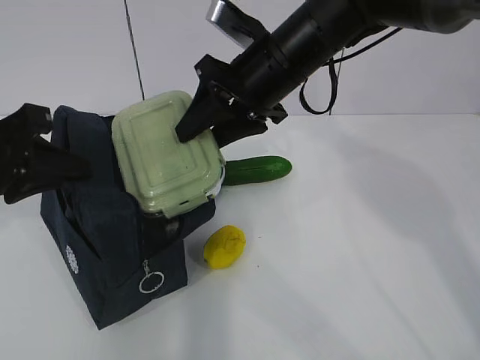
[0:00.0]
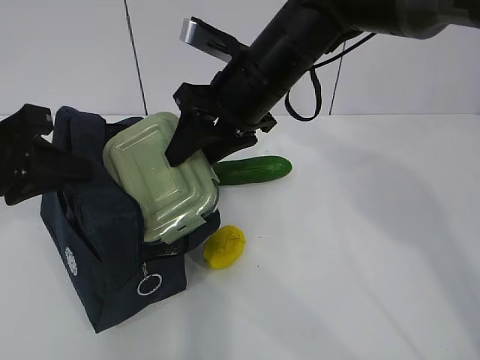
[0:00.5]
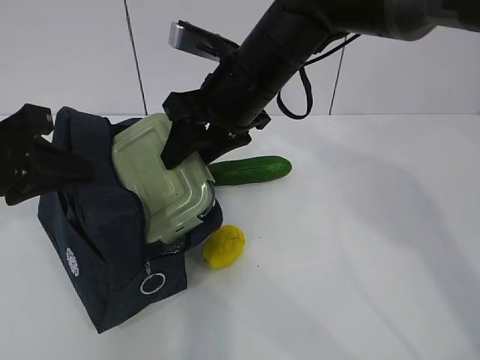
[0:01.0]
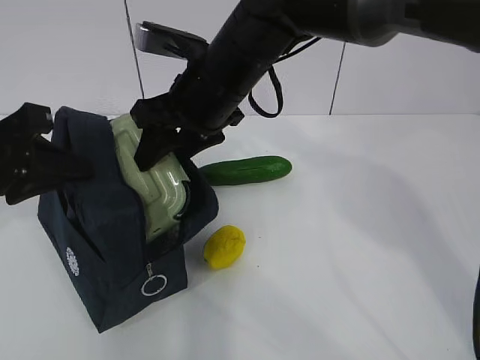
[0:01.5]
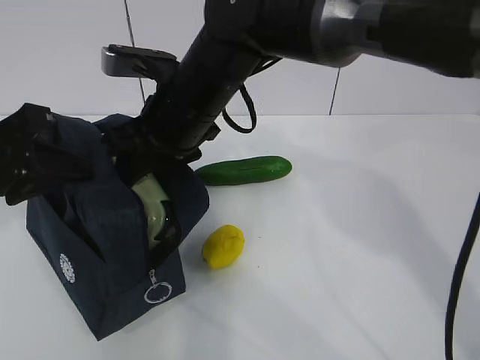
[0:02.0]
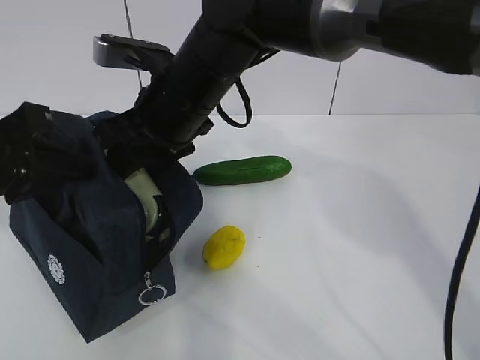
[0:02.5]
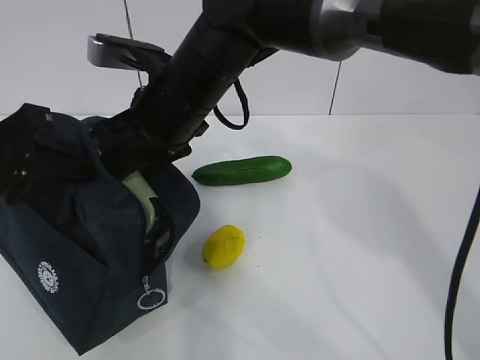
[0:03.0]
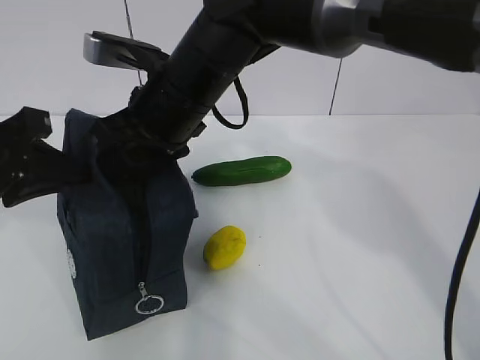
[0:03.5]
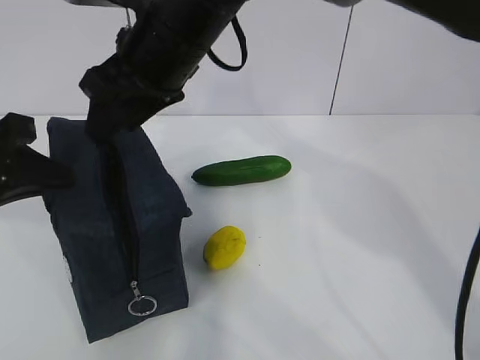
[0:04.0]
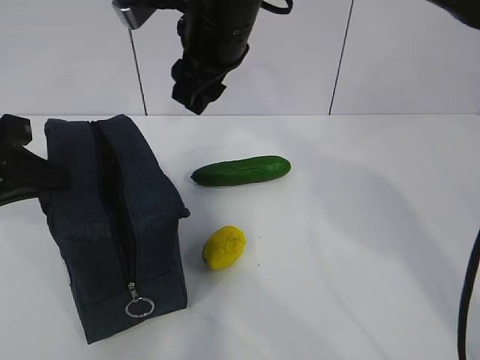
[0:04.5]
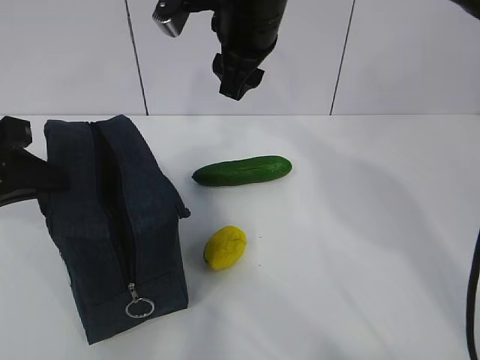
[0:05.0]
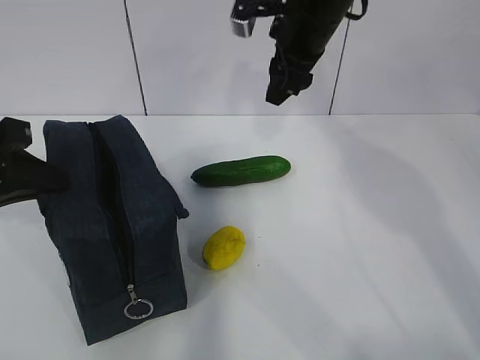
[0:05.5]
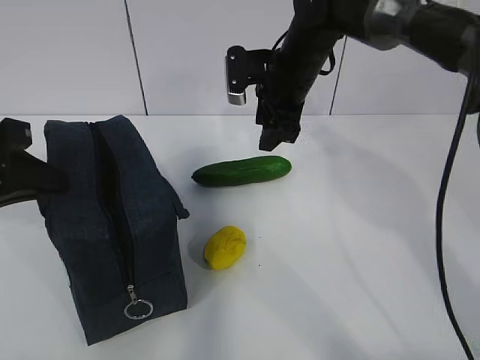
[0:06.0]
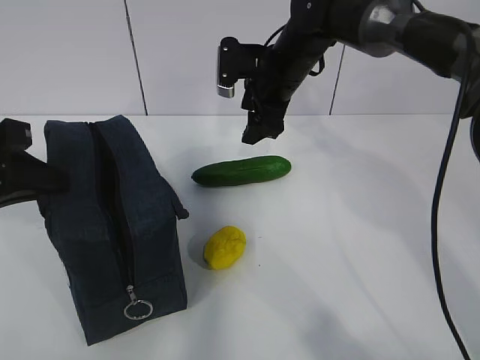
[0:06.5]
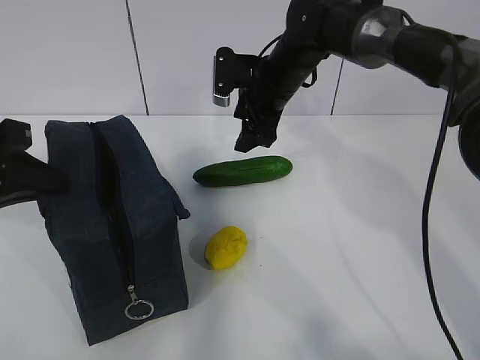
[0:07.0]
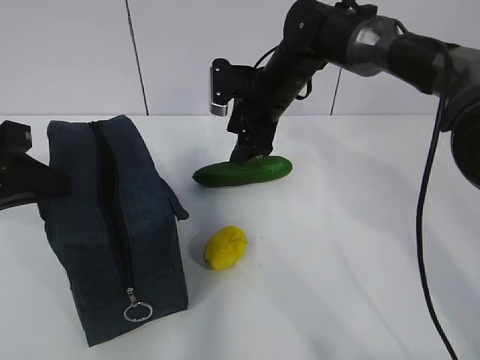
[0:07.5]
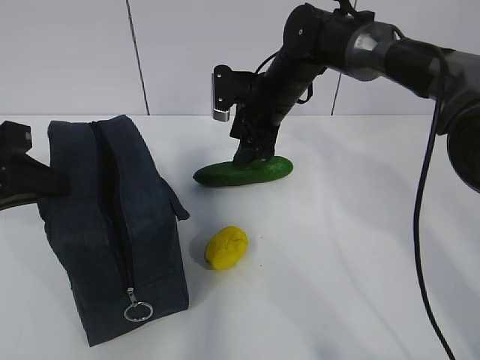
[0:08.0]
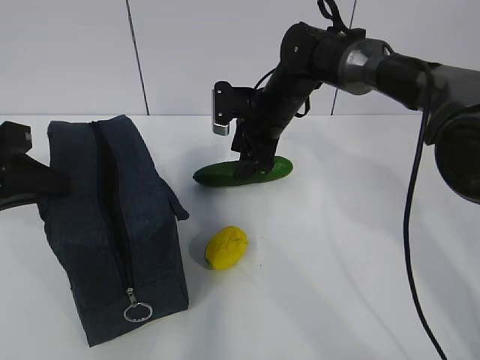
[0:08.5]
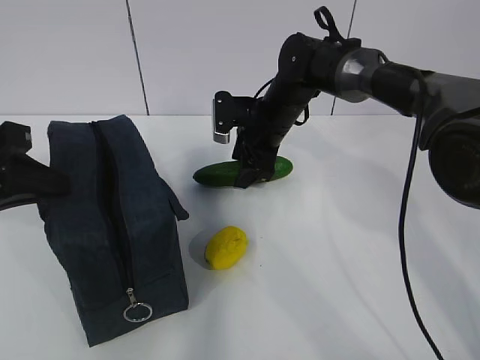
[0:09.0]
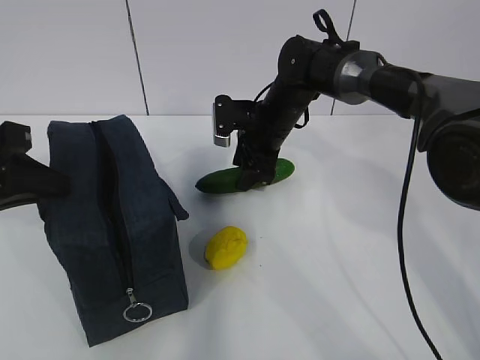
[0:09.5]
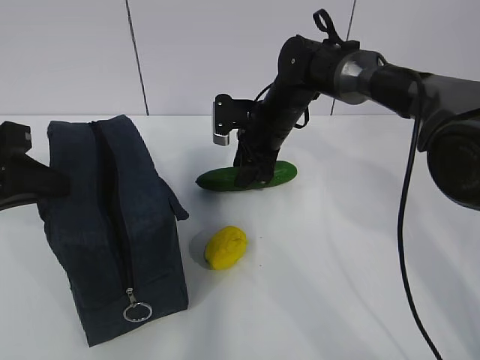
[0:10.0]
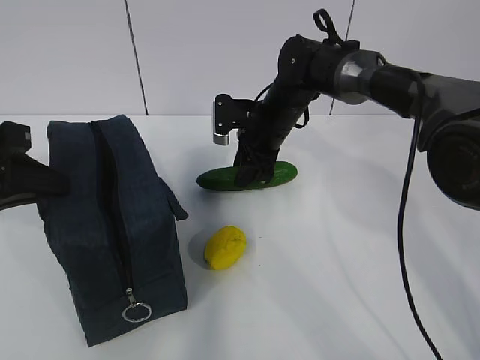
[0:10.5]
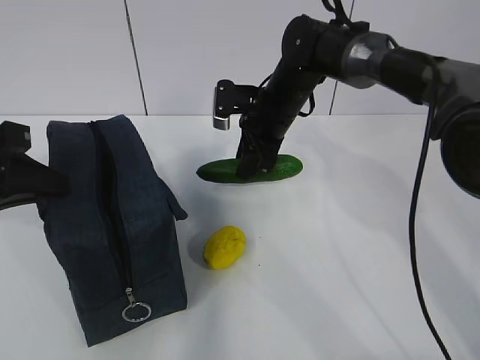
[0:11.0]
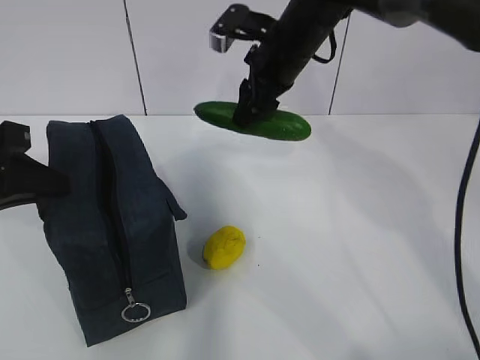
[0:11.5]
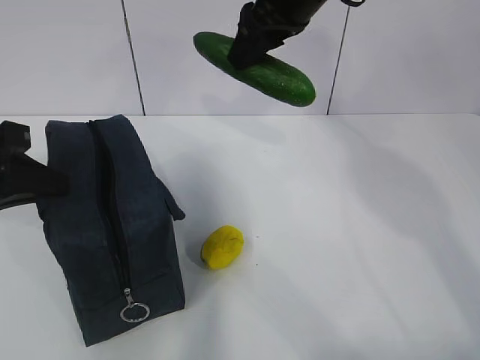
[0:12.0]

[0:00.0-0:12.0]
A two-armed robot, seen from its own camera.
Step, 0.0 to 4.5 s: Grab the cucumber with your right hand.
Step, 5.0 to 9.5 s: Place it into the bag with your right hand.
0.0 to 2.0 s: The right gripper is displaced to the left by some 10 cm.
2.0 to 4.0 s: The right gripper is displaced upward by roughly 5 cm.
4.0 to 6.0 s: The right gripper is displaced to the right, forward and downward by approximately 20 cm.
6.0 to 8.0 s: The right gripper changes place by approximately 5 cm.
8.0 to 10.0 s: The grippers move only a little.
10.0 to 12.0 s: The right gripper moves upward, roughly 20 cm.

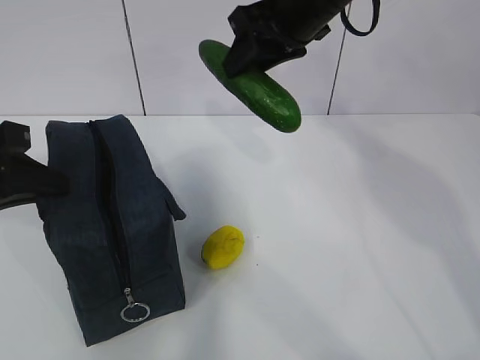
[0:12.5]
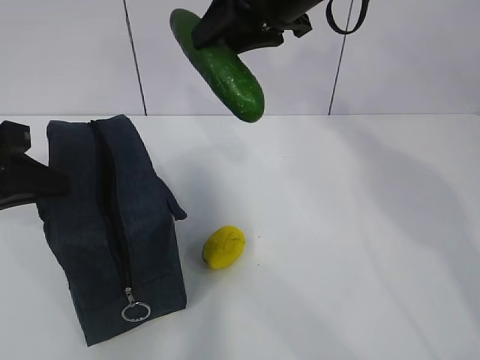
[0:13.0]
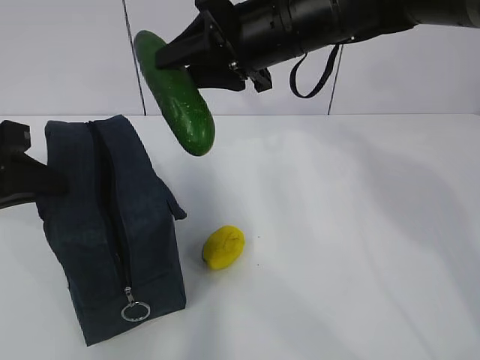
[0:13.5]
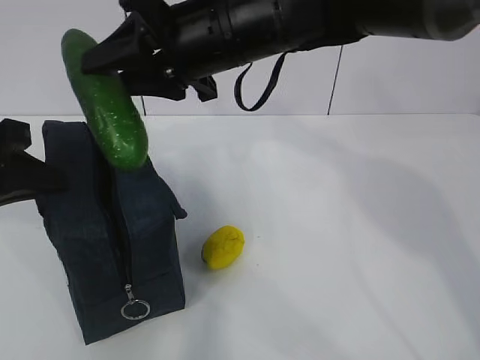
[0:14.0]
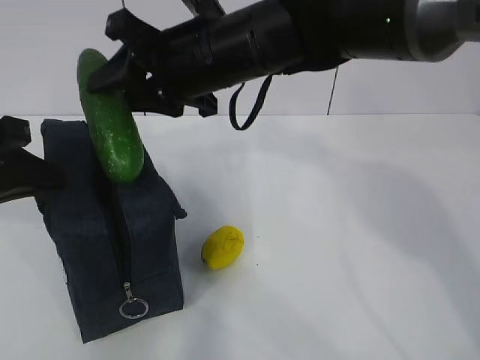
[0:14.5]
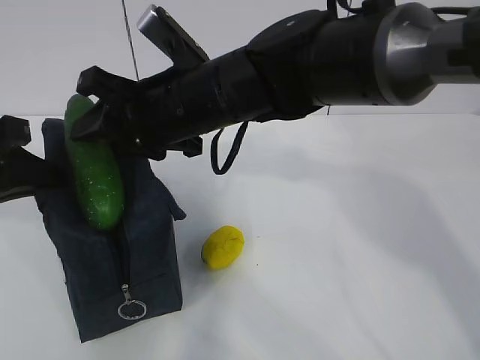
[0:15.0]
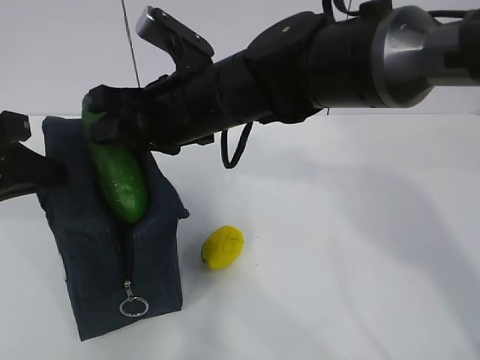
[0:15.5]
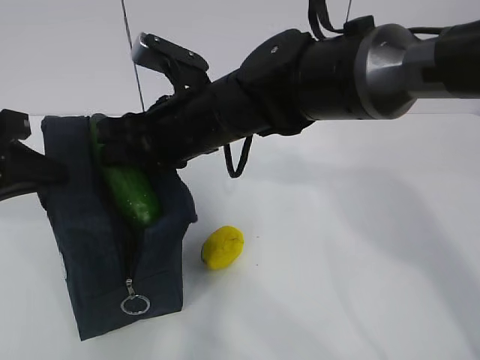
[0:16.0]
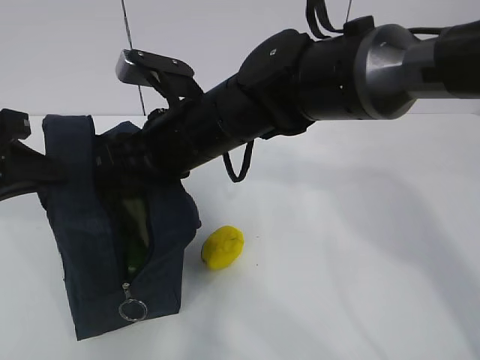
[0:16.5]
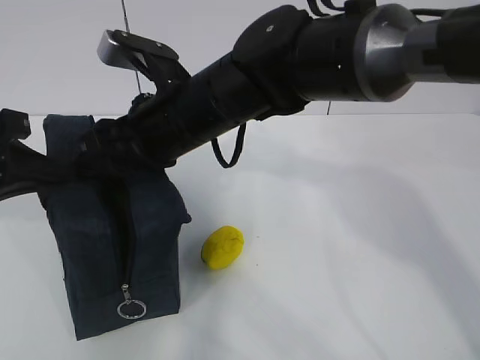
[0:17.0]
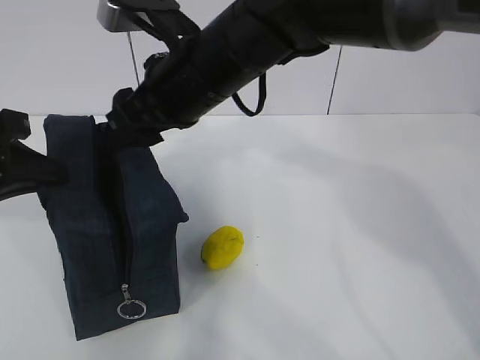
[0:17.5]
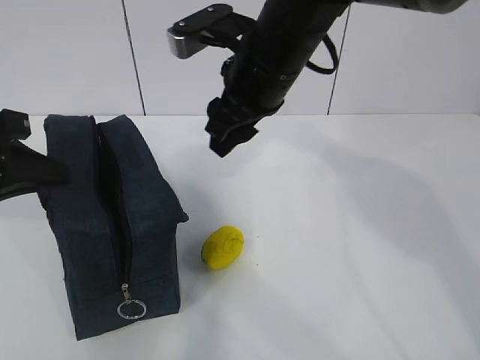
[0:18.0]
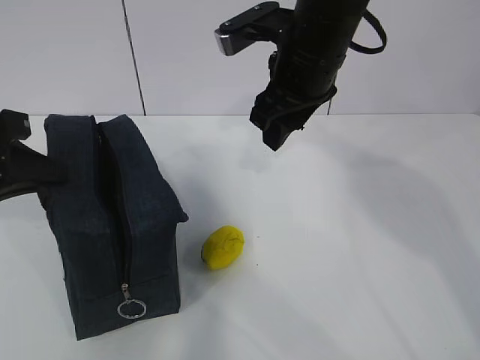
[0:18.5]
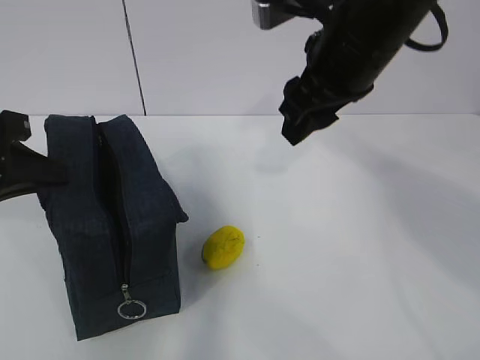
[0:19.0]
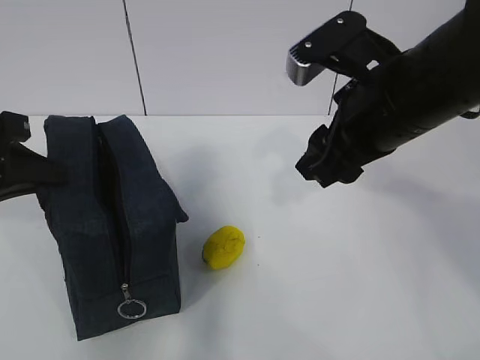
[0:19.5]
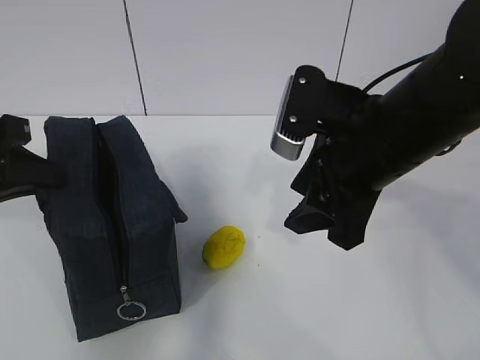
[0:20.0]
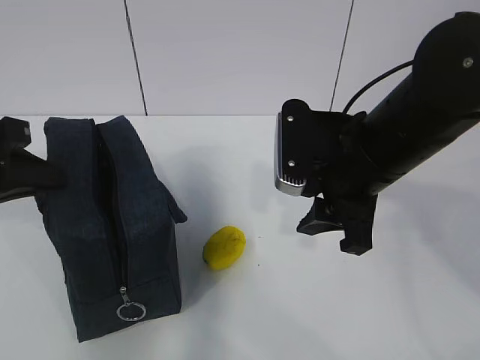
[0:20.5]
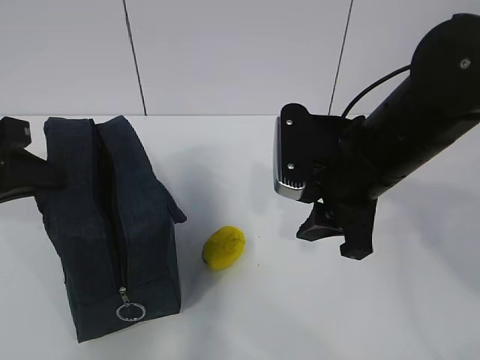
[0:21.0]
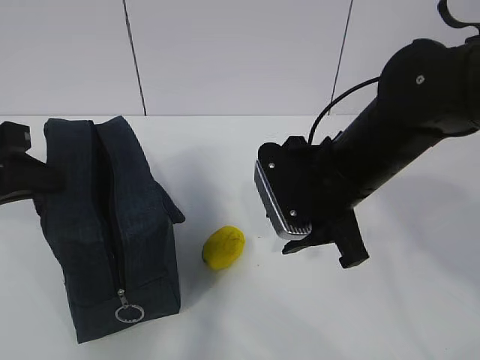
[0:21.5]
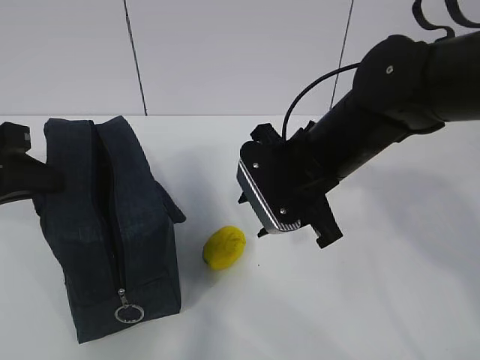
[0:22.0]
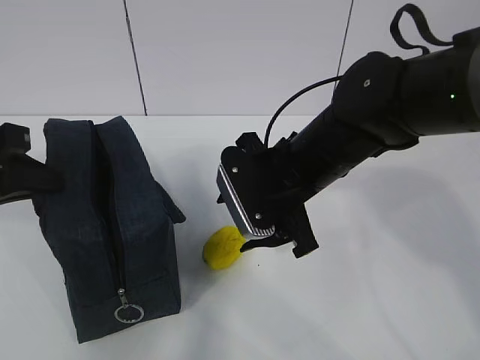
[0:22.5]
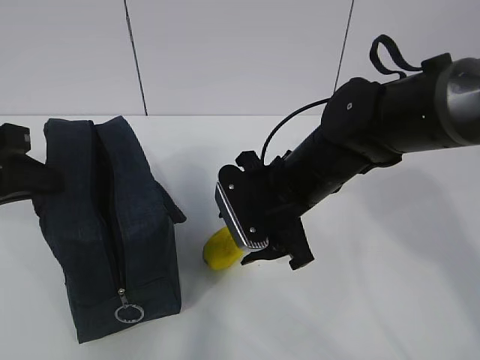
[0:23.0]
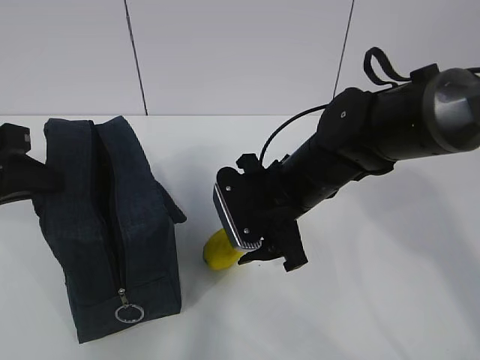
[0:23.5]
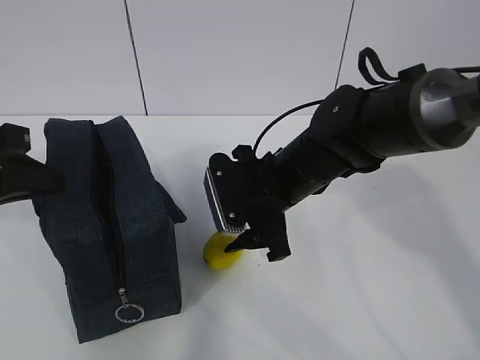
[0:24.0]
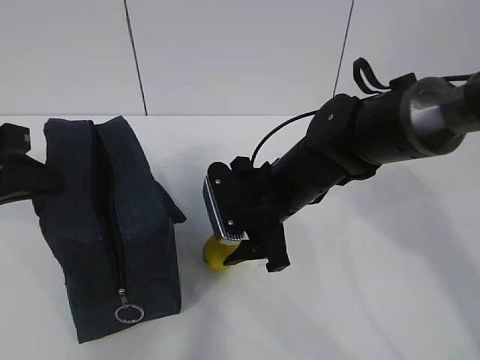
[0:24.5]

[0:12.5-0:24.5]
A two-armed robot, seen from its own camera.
Step, 12.5 to 18.5 s: Grab the lemon with your right hand.
12.5 to 14.5 s: The right gripper heads to the left and backward, covering some 10 cm.
14.5 to 16.5 s: The right gripper shifts approximately 5 cm downward.
16.5 to 18.5 s: The right gripper heads to the right and upward, covering about 15 cm.
18.5 to 20.5 s: The right gripper is displaced backward and downward by approximately 10 cm.
20.5 to 22.5 s: The right gripper goes approximately 5 cm to the left.
22.5 to 24.5 s: The right gripper shifts approximately 5 cm downward.

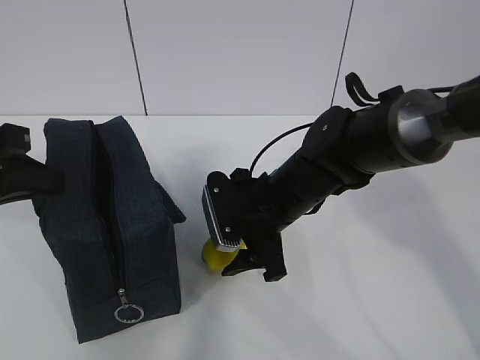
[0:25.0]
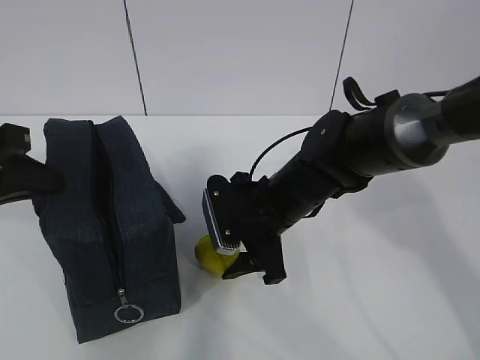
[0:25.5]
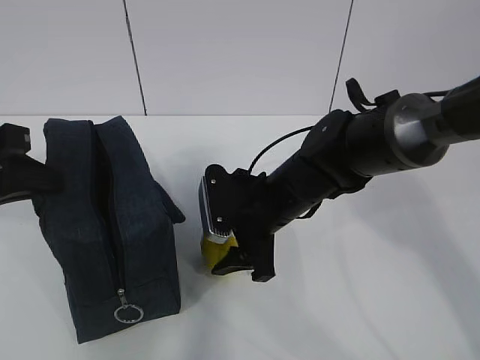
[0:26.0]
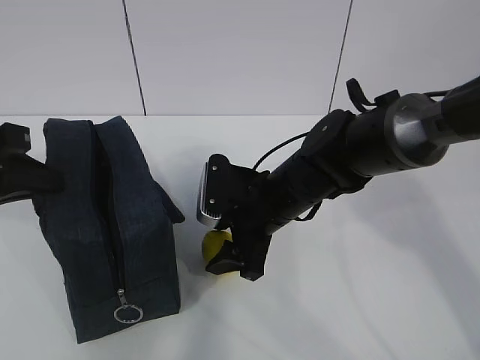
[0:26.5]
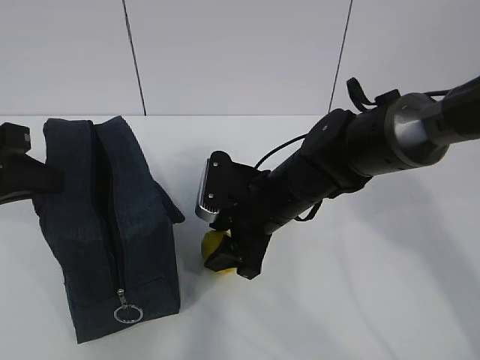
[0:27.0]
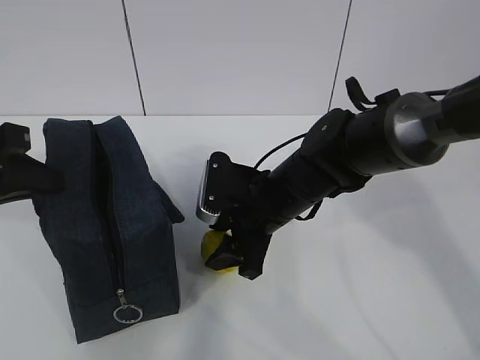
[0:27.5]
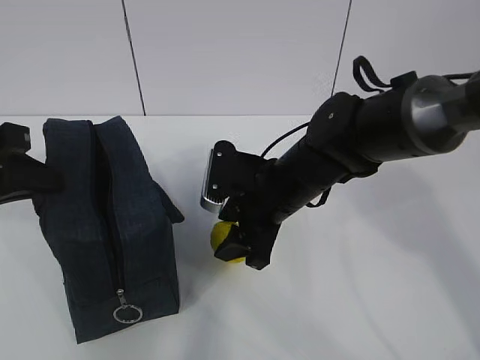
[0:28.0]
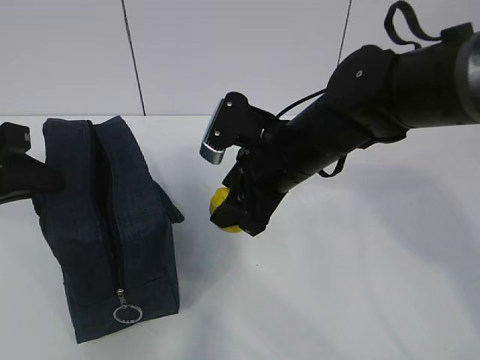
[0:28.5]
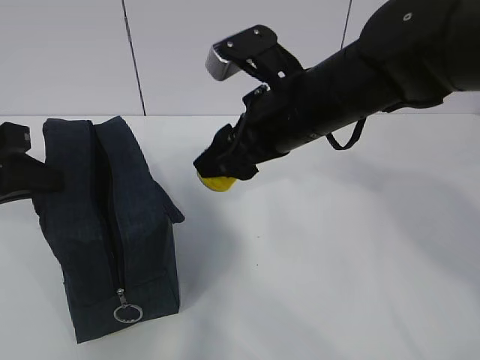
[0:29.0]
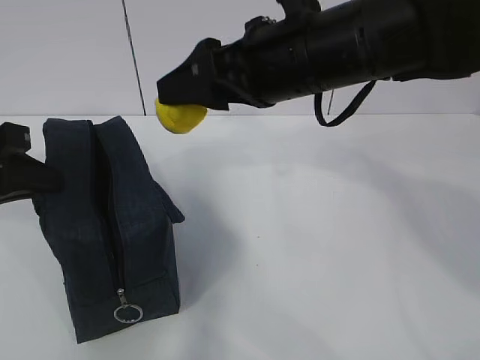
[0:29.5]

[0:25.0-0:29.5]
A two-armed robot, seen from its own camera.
Step, 26.0 to 28.5 s: Move the lunch bag to the right.
27.0 to 29.5 s: The right gripper heads upward, covering some 20 cm.
